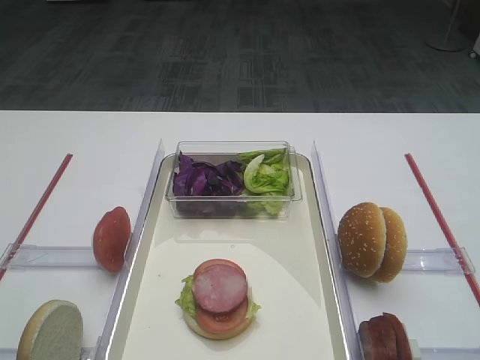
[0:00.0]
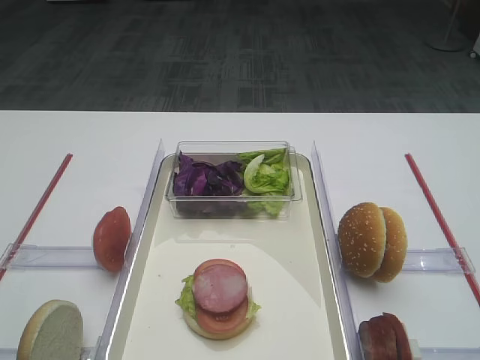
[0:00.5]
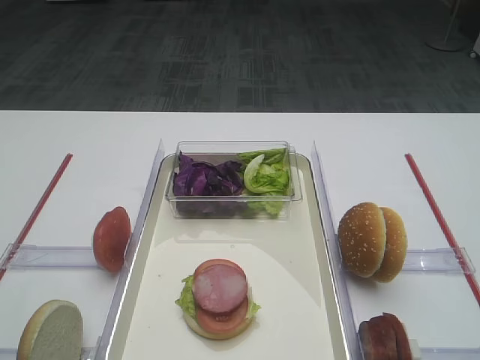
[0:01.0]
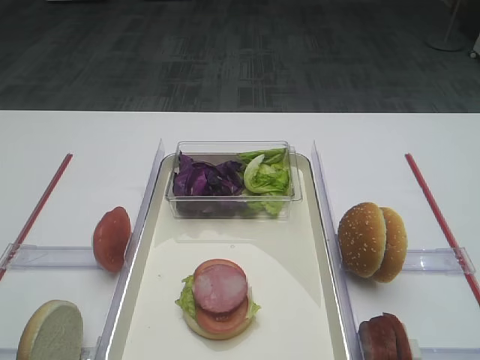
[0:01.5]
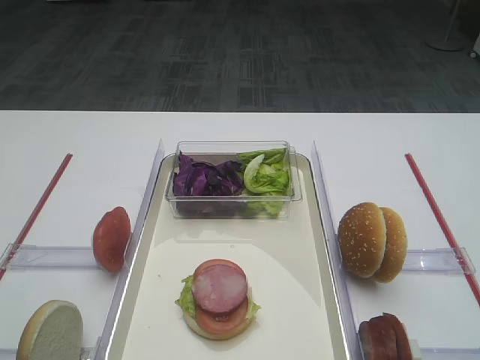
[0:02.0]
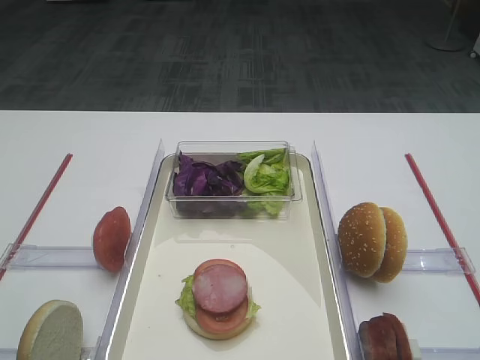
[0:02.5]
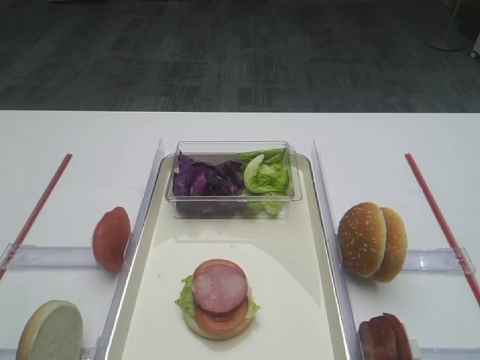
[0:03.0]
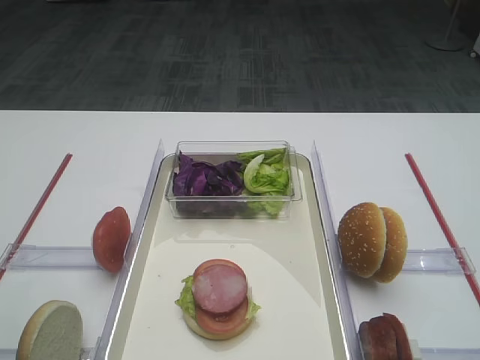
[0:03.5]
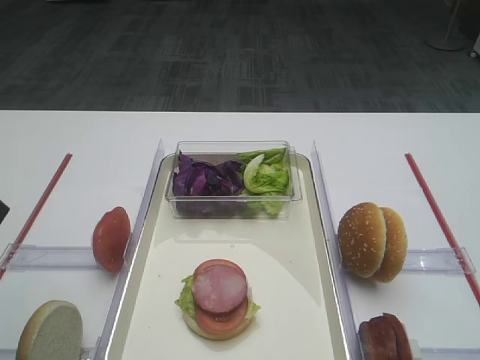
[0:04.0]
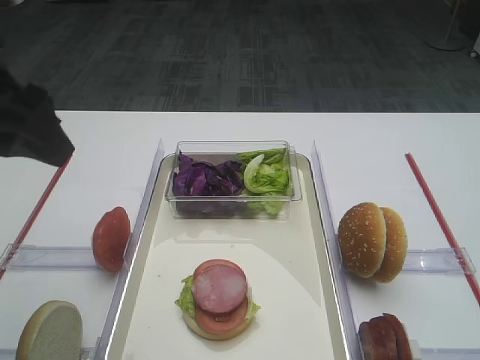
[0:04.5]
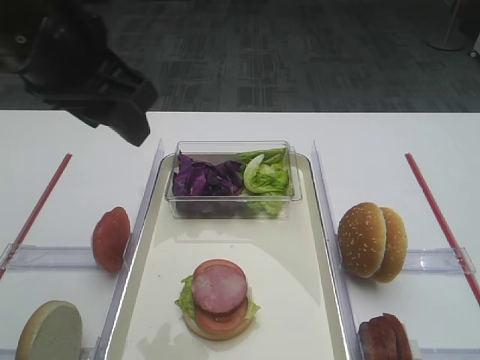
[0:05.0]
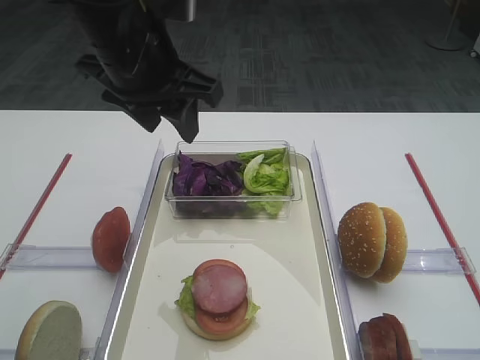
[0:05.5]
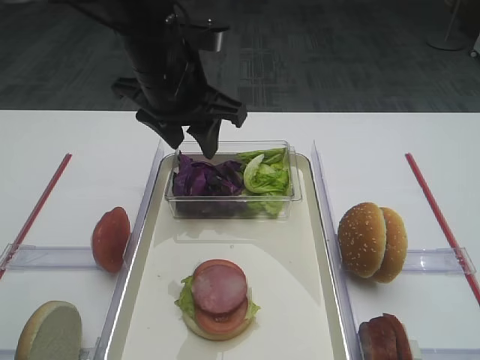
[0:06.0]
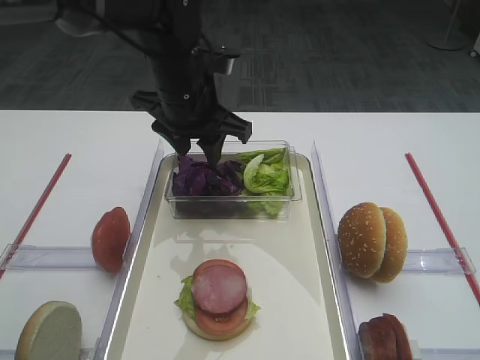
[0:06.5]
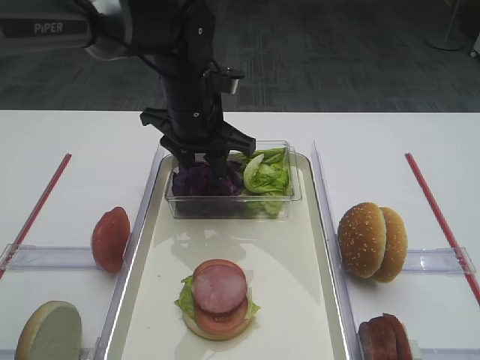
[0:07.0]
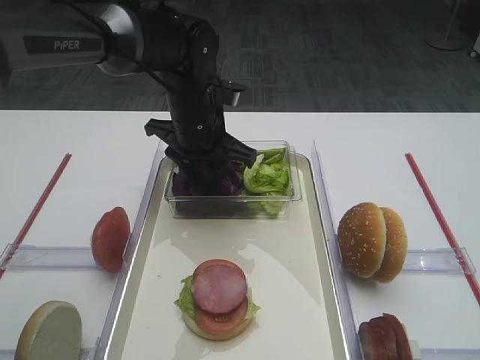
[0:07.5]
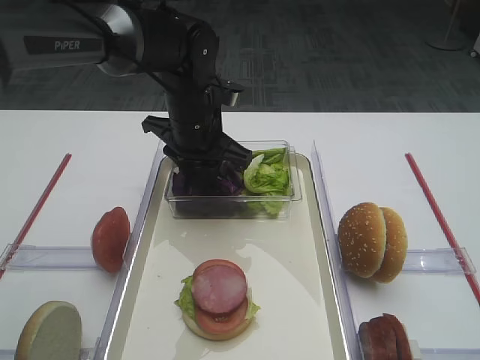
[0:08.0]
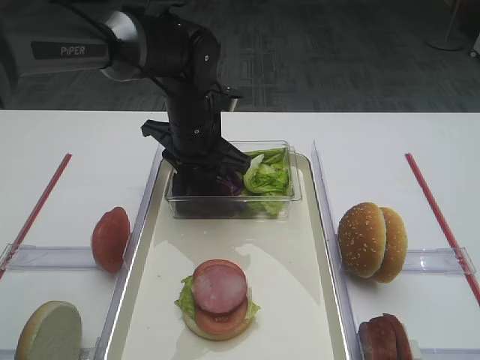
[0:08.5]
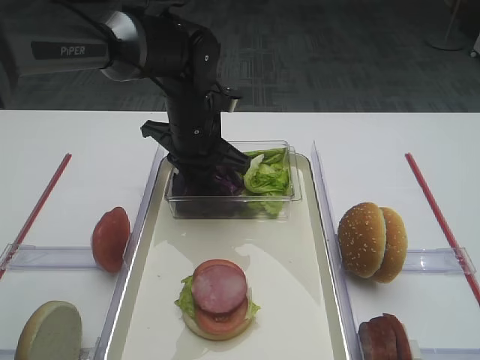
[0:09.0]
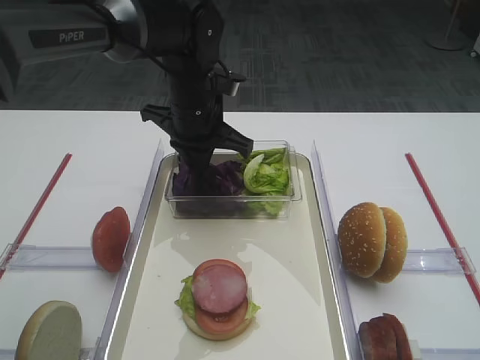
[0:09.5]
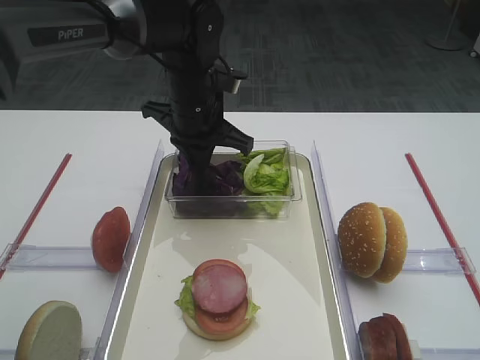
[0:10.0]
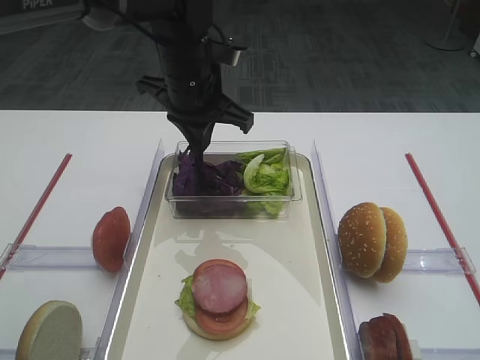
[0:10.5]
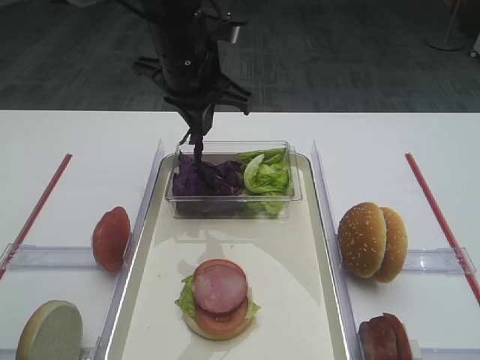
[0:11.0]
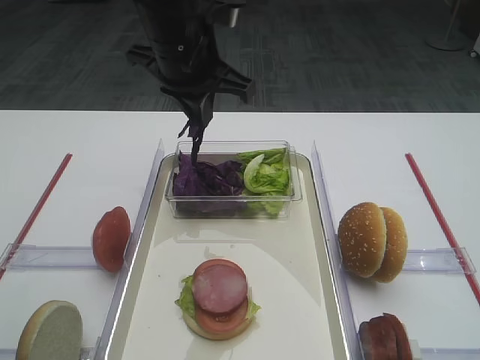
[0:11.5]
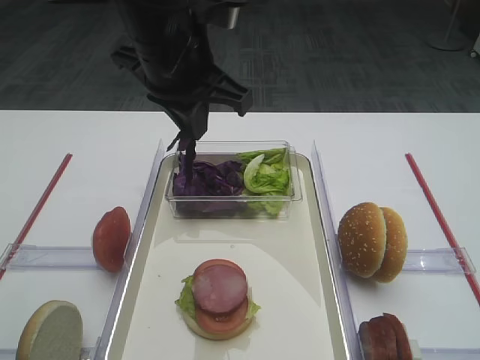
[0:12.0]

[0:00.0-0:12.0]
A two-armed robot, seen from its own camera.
Step, 0:00.0 to 0:11.0: Pick up the purple cabbage with the left gripper.
0:04.0 to 0:06.0: The left gripper heads forward and to the right, covering roughly 25 cm.
0:06.0 to 0:08.0: The left gripper is displaced downward and forward by approximately 10 cm.
0:08.0 to 0:10.0: The left gripper closes its fingers.
0:10.0 to 0:12.0: The left gripper heads upward and backward, covering approximately 15 cm.

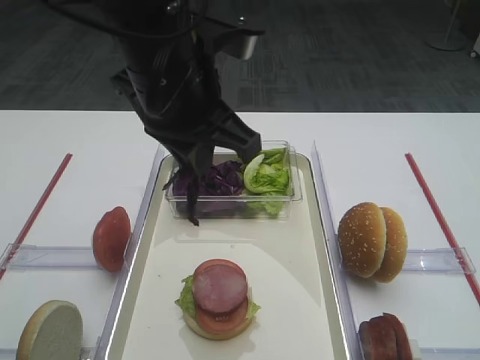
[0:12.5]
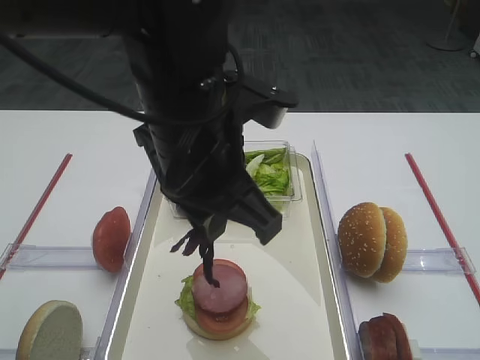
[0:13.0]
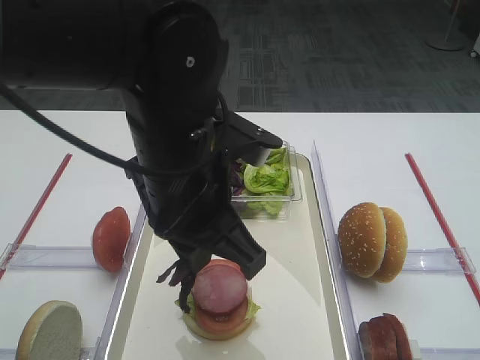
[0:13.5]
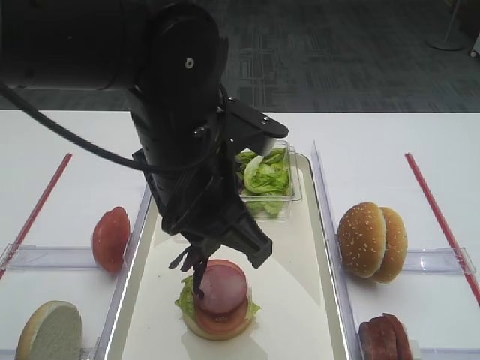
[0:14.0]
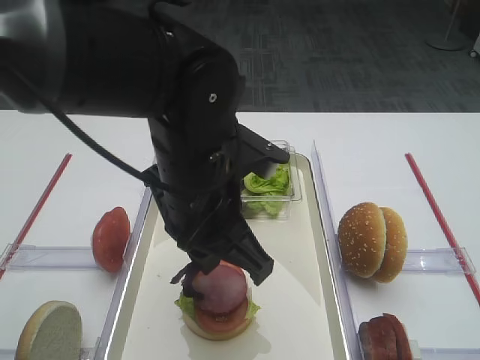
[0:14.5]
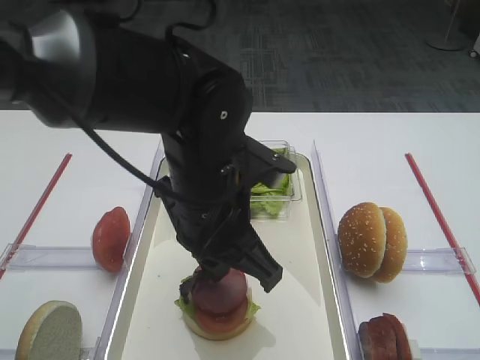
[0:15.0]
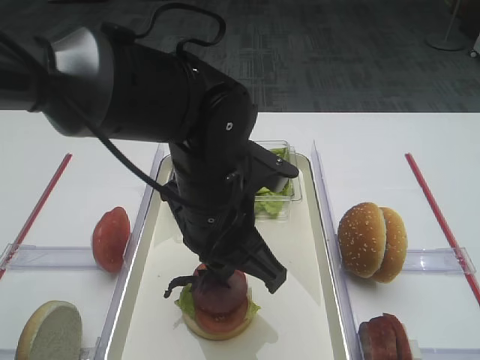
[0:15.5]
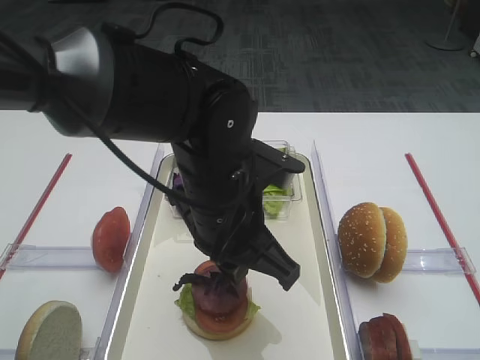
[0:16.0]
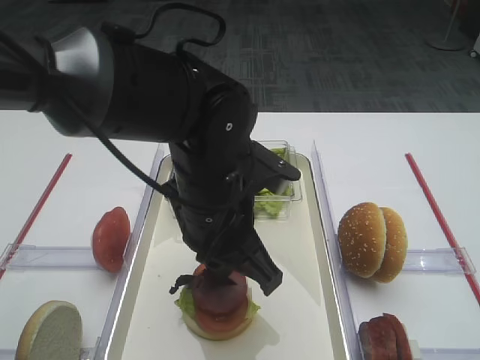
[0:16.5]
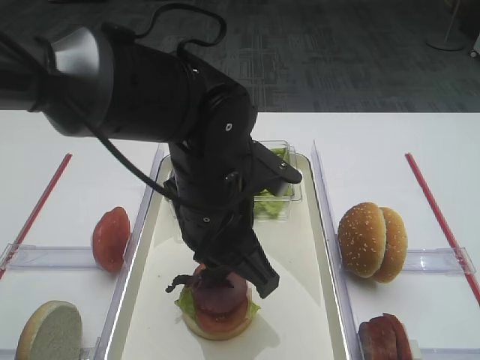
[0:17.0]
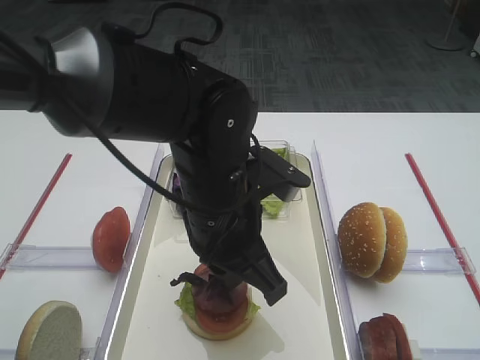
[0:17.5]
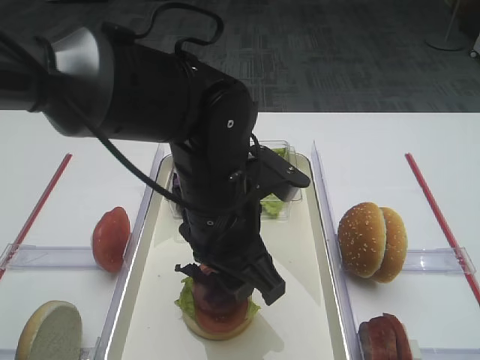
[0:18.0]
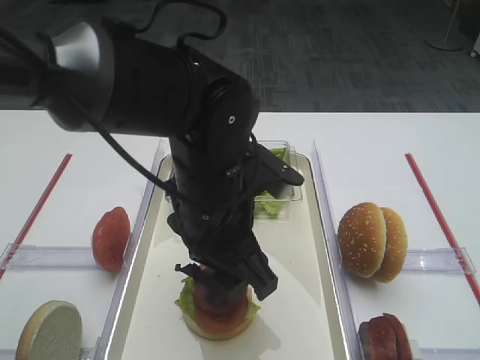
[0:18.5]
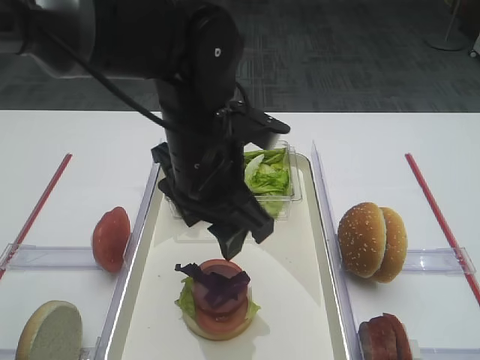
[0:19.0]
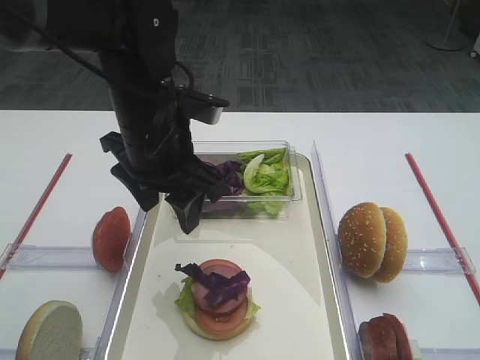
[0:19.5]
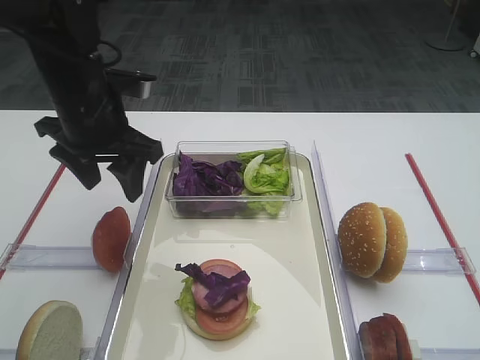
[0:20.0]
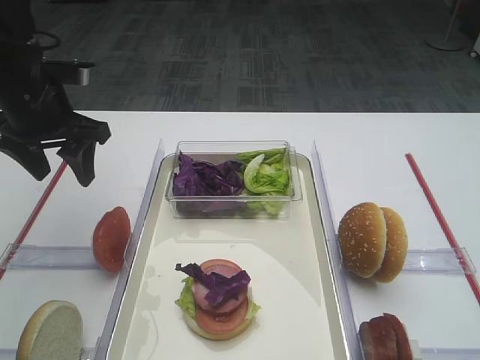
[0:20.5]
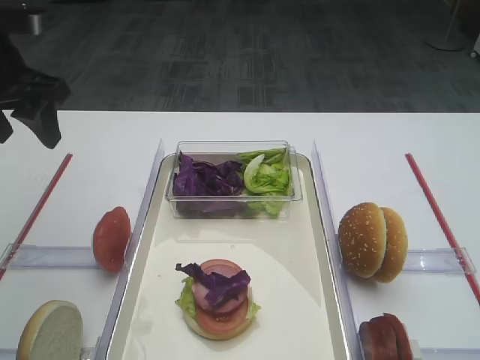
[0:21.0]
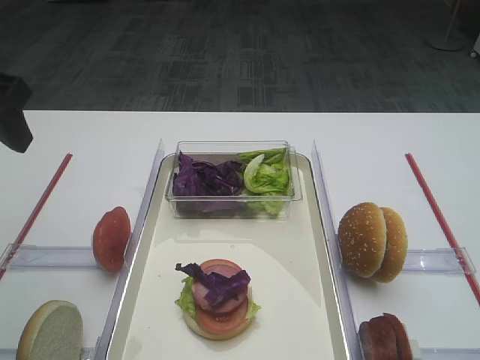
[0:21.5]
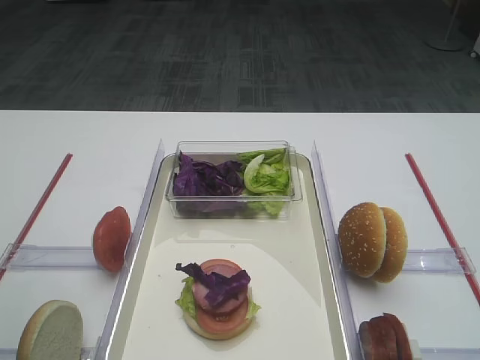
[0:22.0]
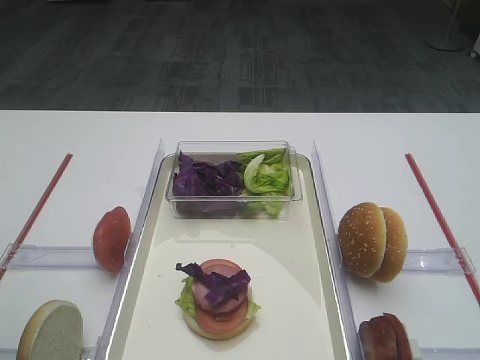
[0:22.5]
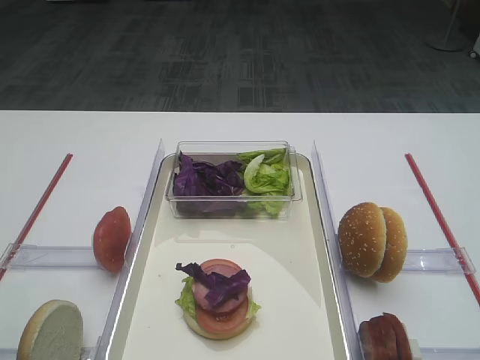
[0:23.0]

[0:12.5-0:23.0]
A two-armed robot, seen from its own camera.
Step, 0:12.5 to 0:19.0: Place the purple cabbage on the cutlet with the left gripper.
0:12.5 to 0:14.5: The left gripper moves downward, approximately 10 cm.
0:14.5 to 0:16.5: There are only small adjustments of the grippers.
0:16.5 to 0:19.0: The left gripper opens.
0:19.0 to 0:21.0: The left gripper shifts some 25 cm to the left.
0:21.0 to 0:23.0: The left gripper travels backward by roughly 25 cm.

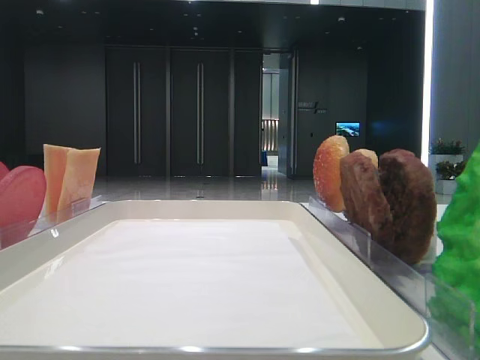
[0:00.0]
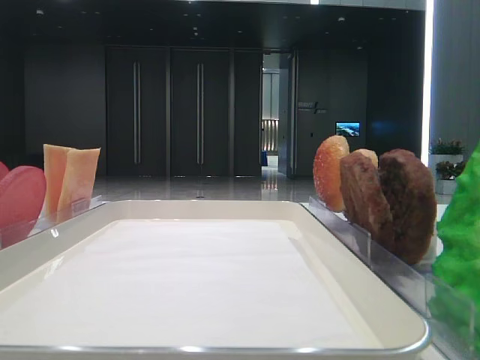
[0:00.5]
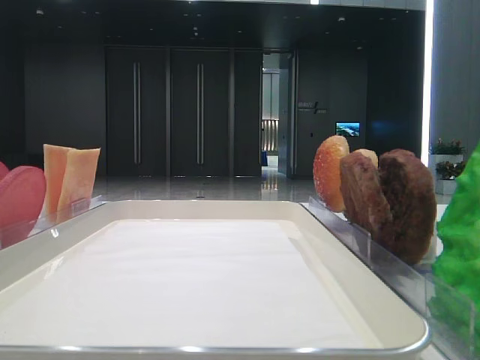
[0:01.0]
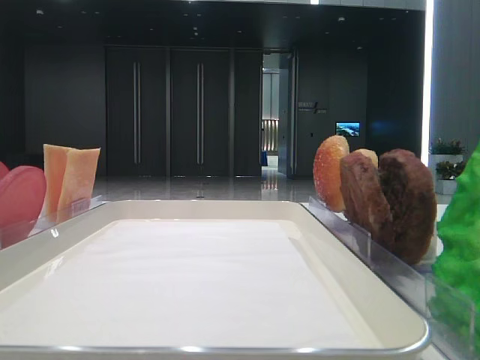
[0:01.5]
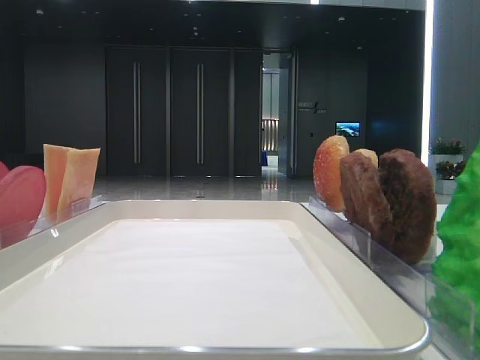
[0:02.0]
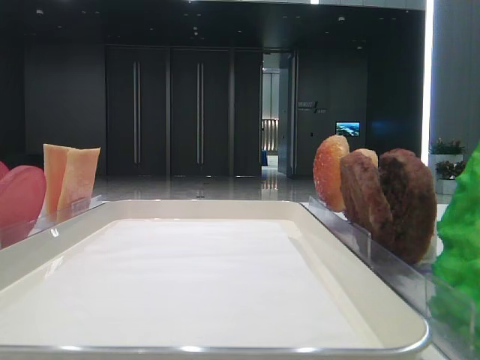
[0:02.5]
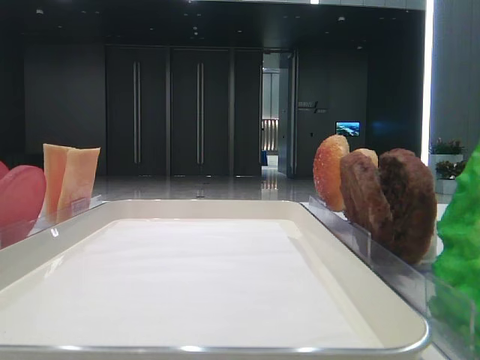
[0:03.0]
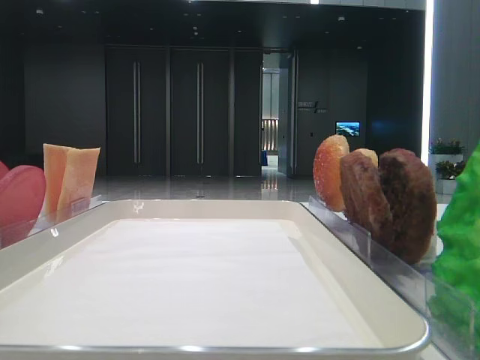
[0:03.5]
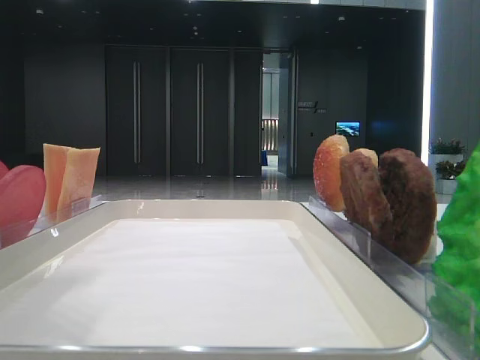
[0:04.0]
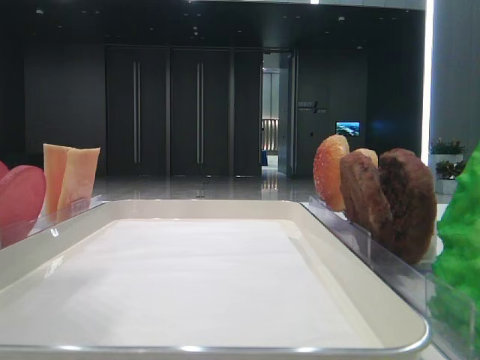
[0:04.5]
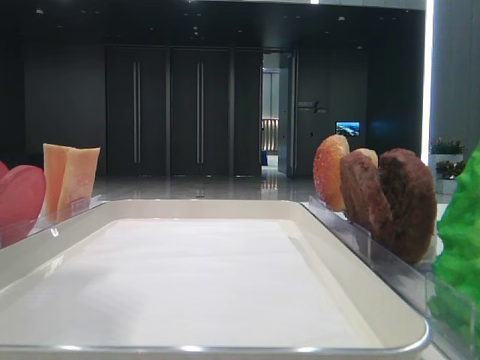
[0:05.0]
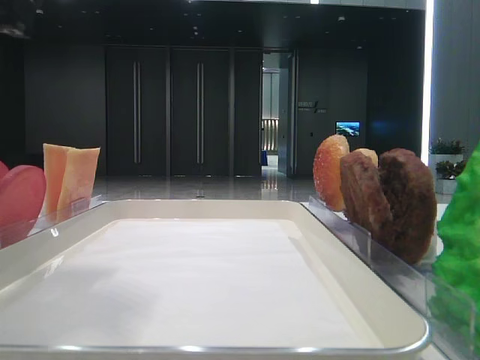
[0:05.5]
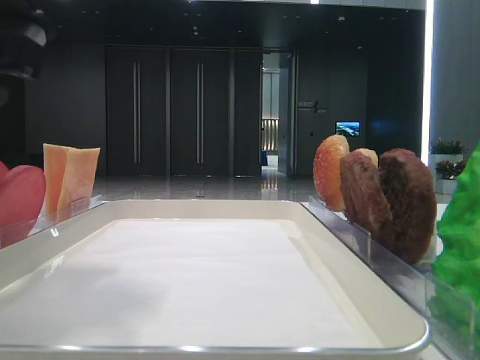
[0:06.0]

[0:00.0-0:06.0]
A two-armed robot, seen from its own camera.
0:02.0 to 0:04.0: The left gripper heads forward and to the right, covering some 20 cm.
0:04.0 to 0:06.0: The left gripper heads downward, covering some 5 cm.
